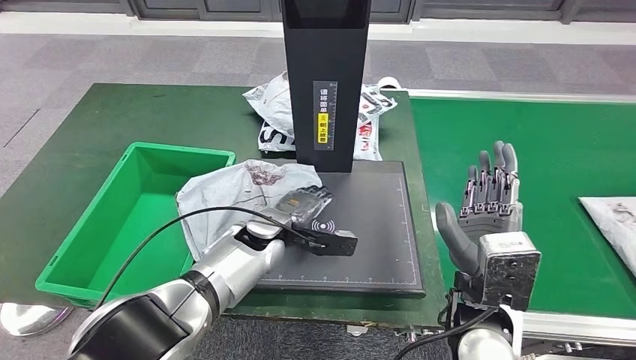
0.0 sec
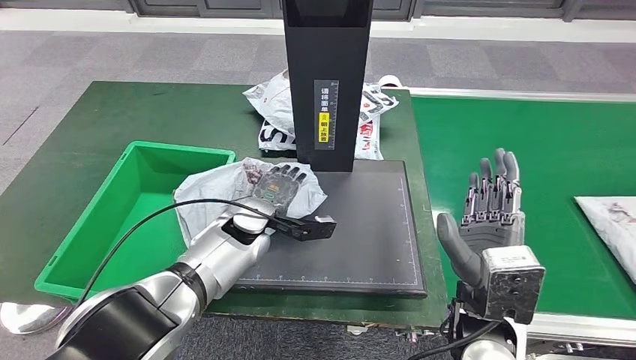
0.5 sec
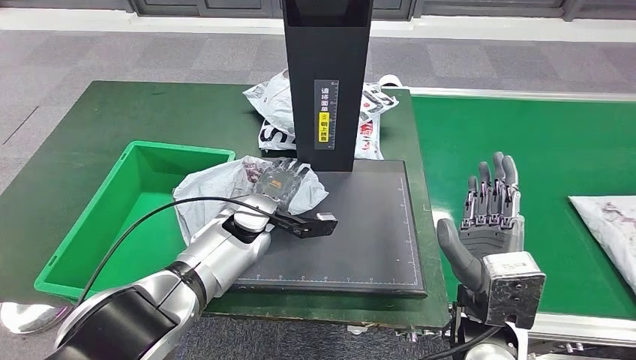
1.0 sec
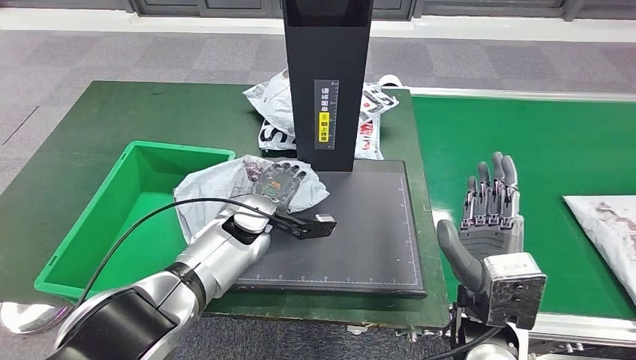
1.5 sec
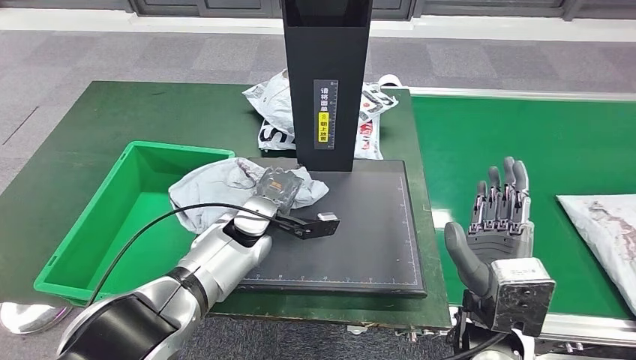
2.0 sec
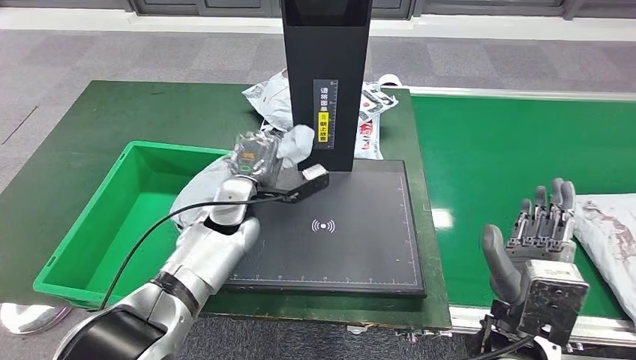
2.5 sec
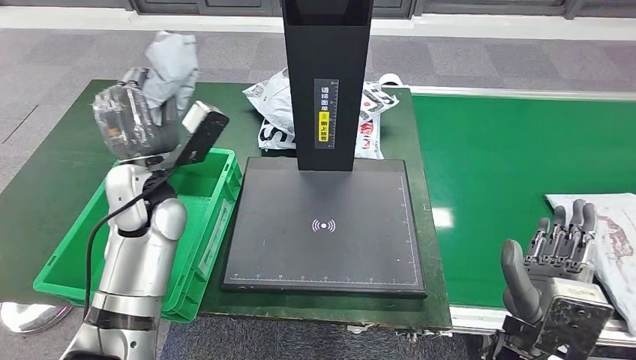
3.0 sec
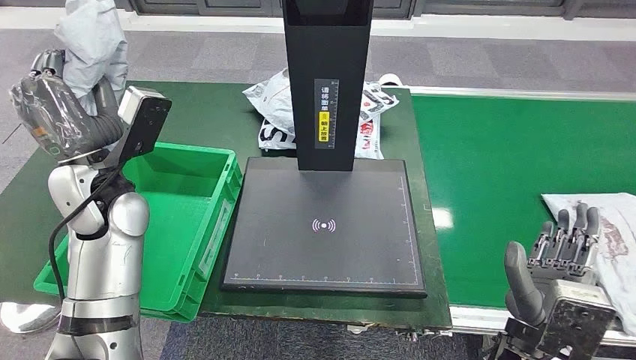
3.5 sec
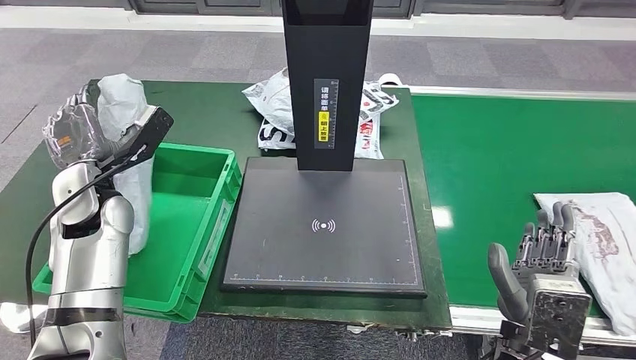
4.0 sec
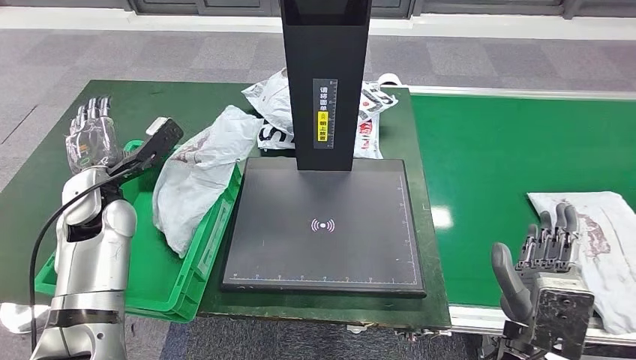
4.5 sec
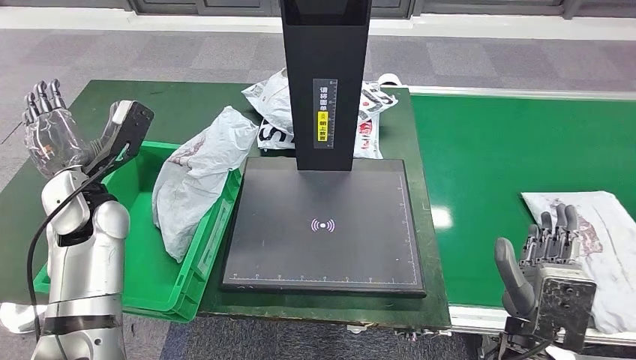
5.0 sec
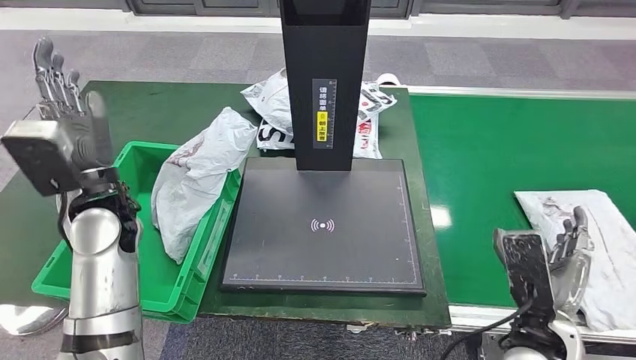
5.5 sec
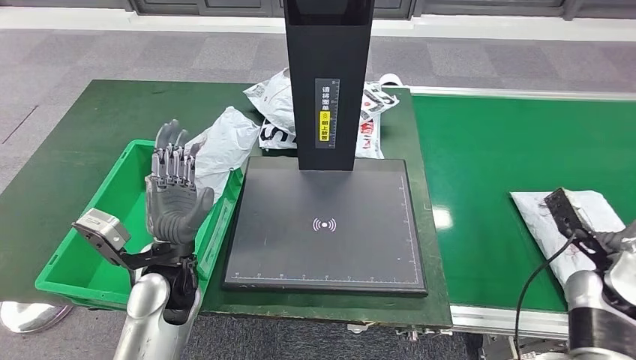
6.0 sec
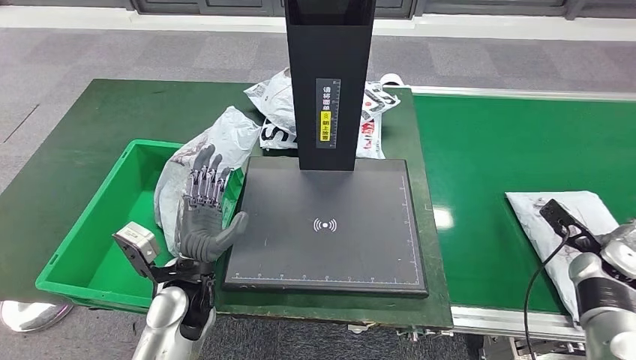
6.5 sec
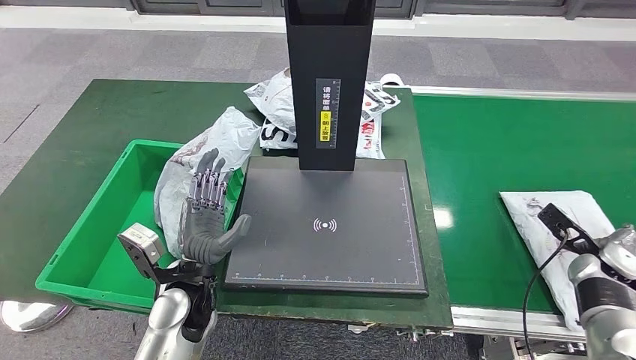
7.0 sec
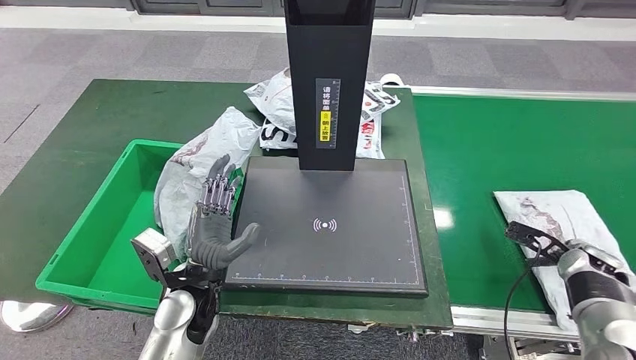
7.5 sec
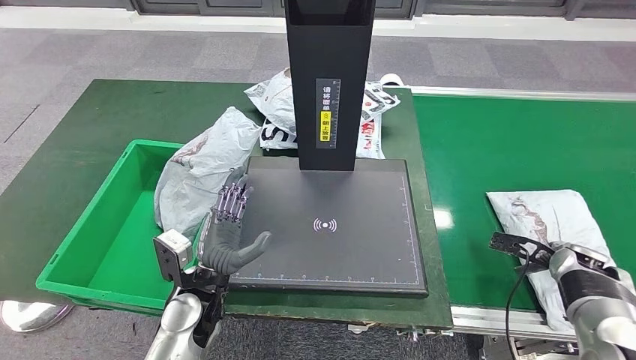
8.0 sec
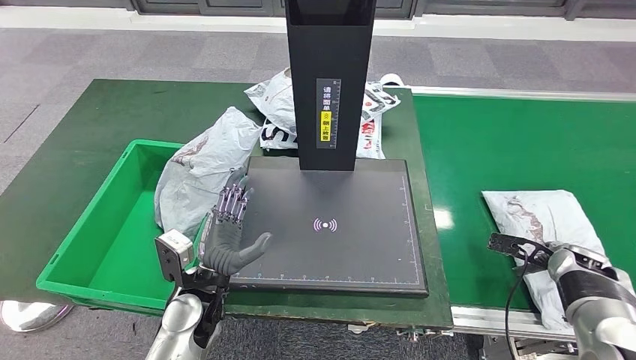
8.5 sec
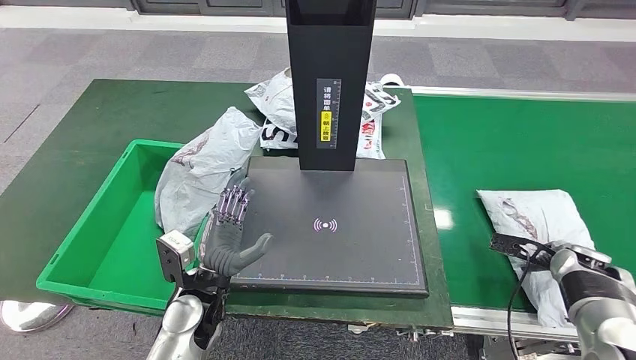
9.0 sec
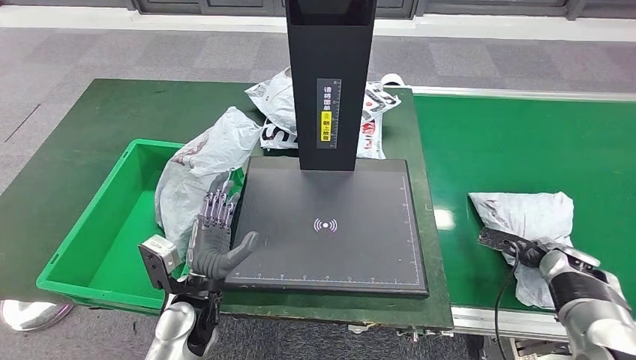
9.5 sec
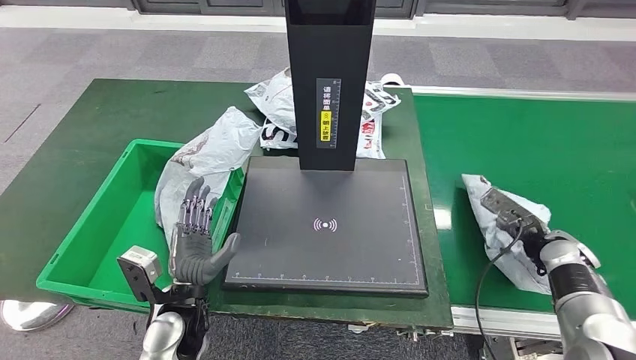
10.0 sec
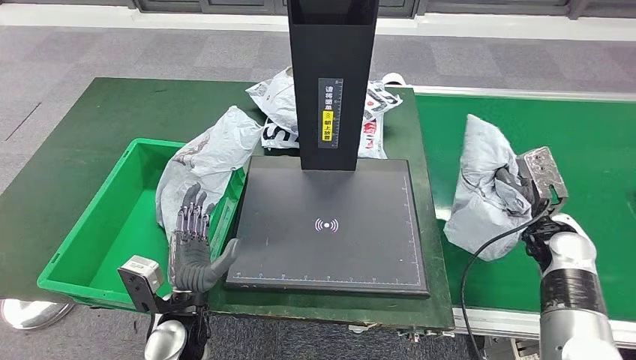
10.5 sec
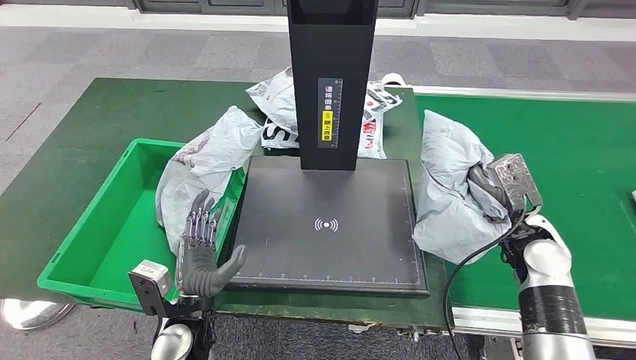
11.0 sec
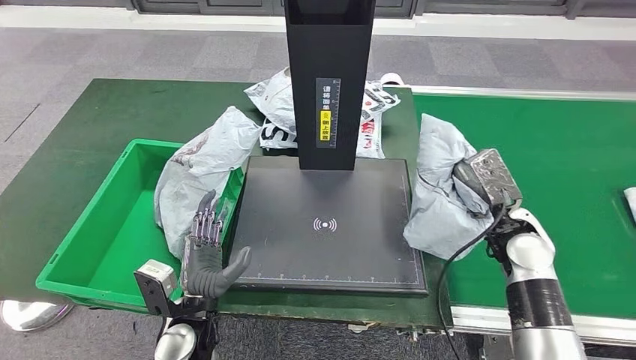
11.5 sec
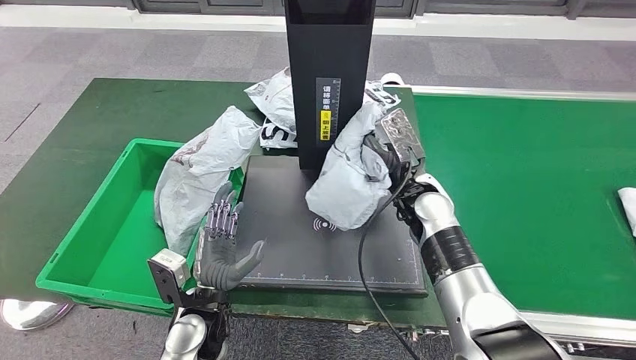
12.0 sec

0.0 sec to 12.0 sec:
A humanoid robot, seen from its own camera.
Step, 0.0 sec to 3.0 sec: Pick up the parcel from the inbound machine.
Step, 3.5 sec to 6.5 sec: Put the parcel inside the courier box.
Step, 7.0 sec to 10.5 sec: Pick up the parcel from the conveyor belt.
6.0 sec to 8.0 sec: The right hand changes place by about 5 cm, while the left hand moves downward, about 5 cm.

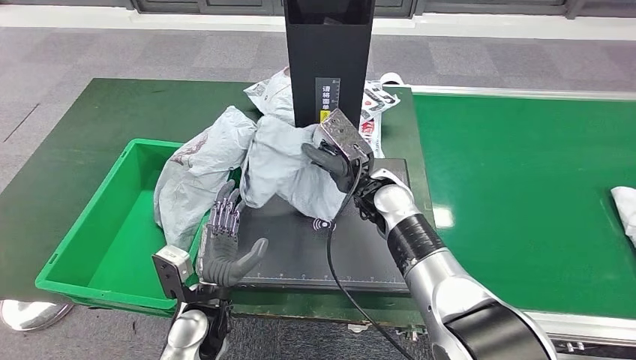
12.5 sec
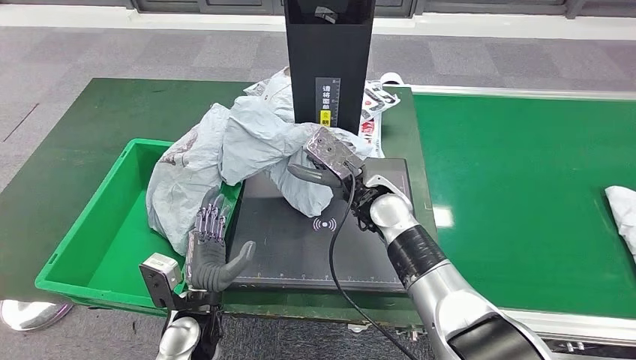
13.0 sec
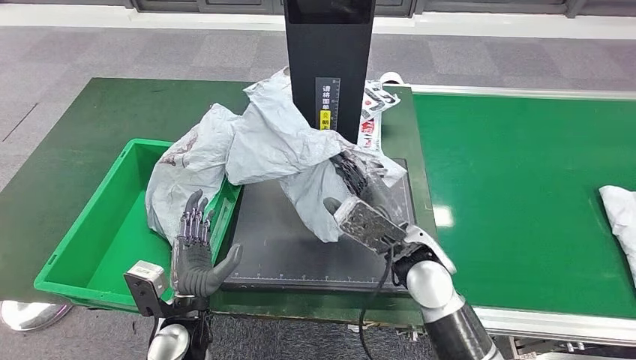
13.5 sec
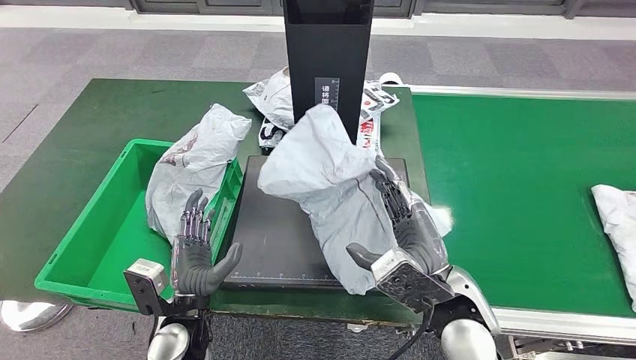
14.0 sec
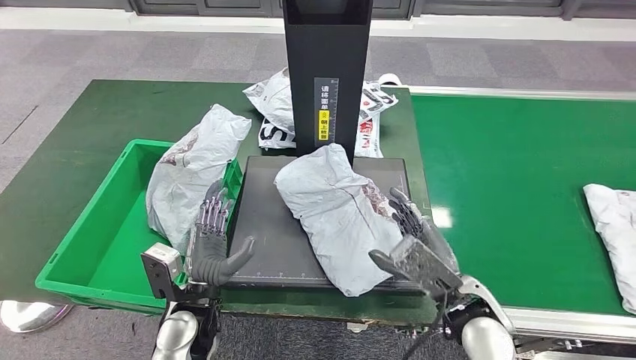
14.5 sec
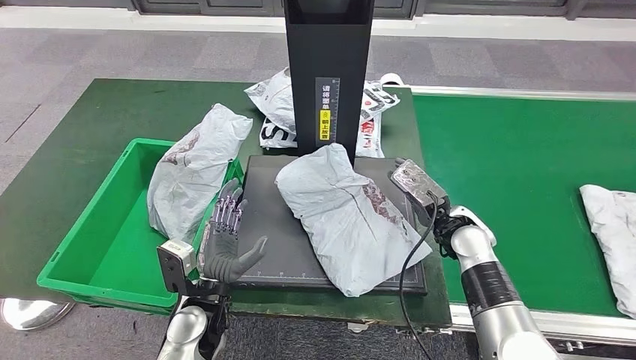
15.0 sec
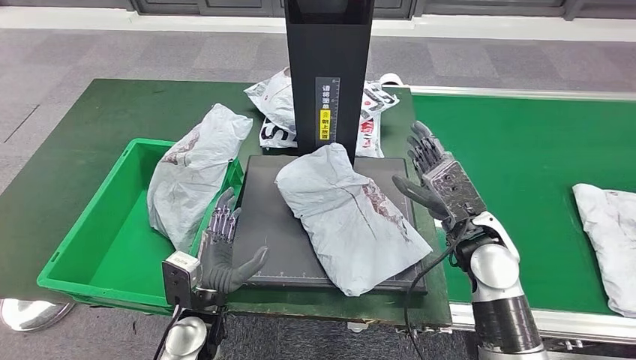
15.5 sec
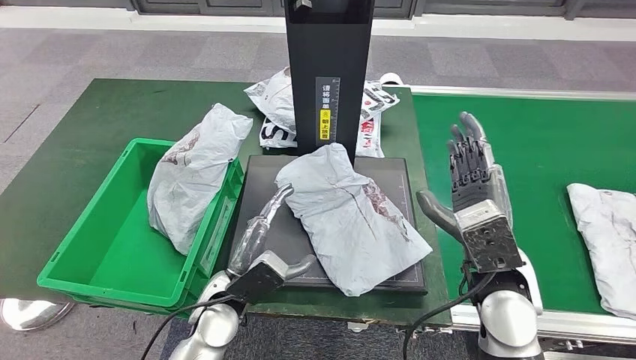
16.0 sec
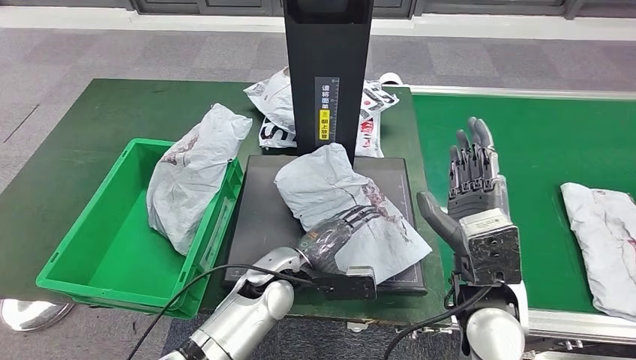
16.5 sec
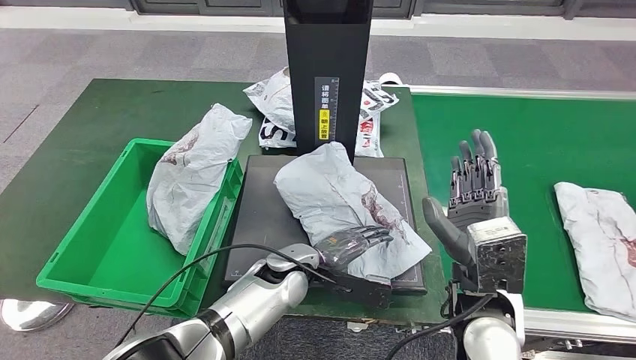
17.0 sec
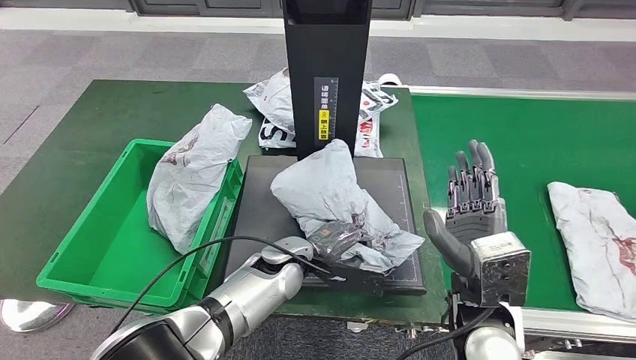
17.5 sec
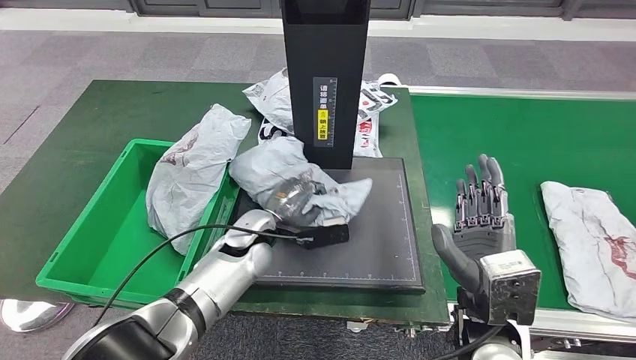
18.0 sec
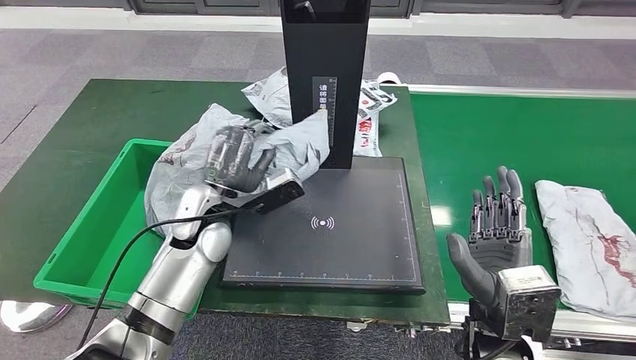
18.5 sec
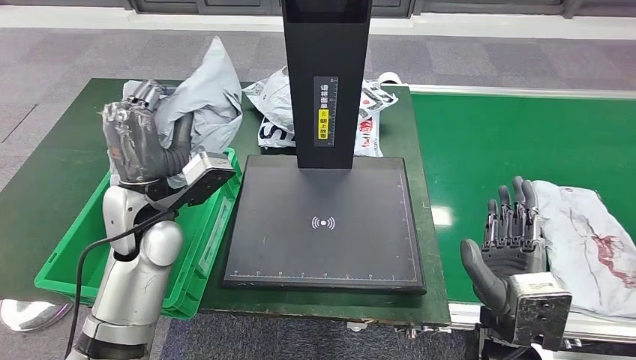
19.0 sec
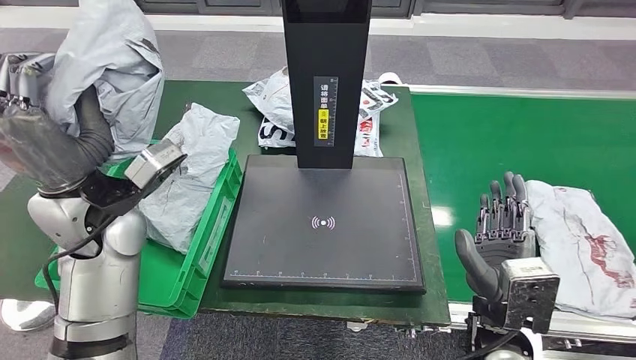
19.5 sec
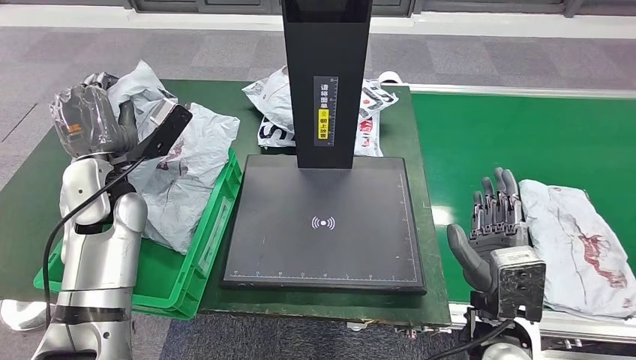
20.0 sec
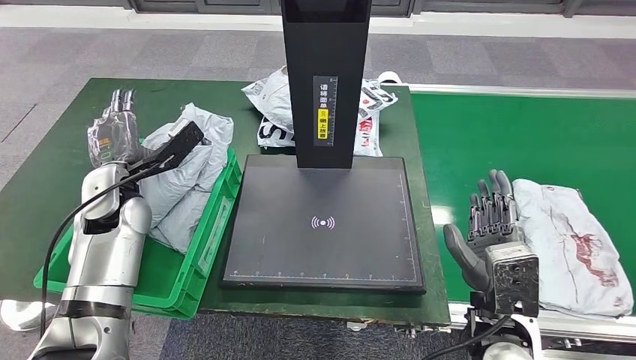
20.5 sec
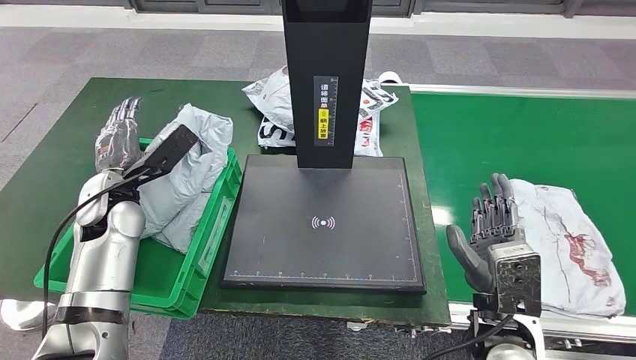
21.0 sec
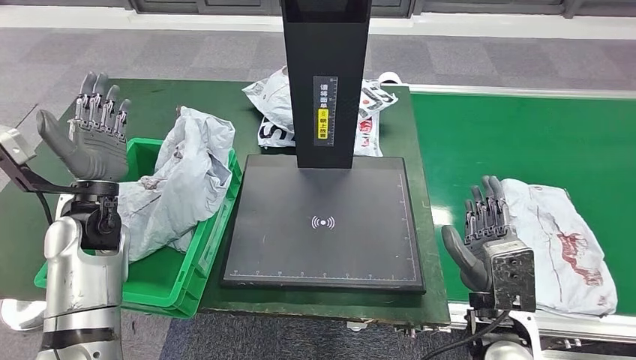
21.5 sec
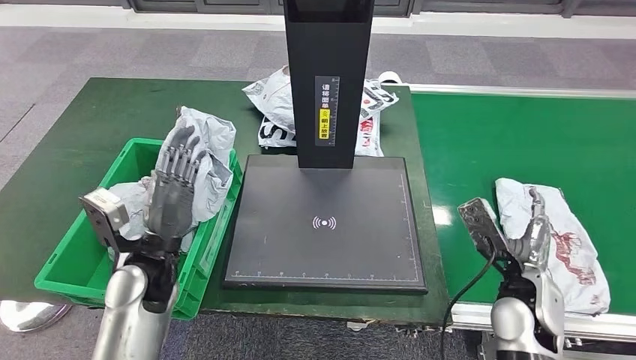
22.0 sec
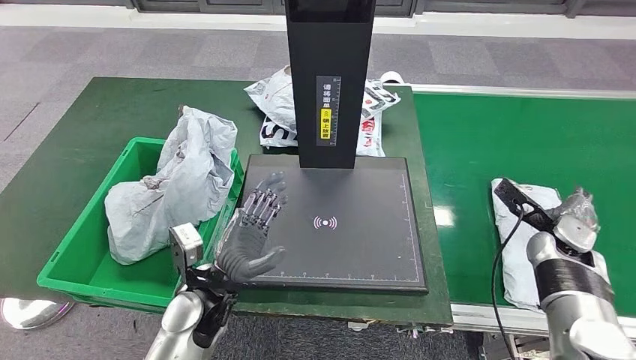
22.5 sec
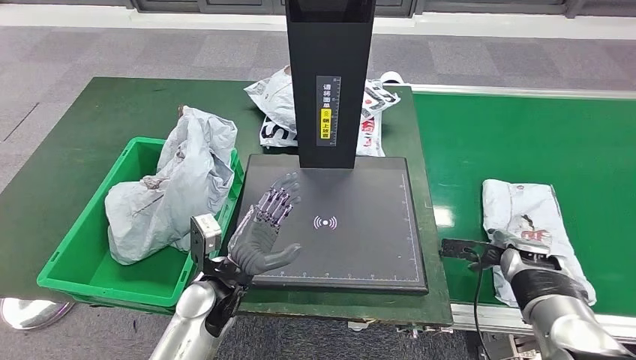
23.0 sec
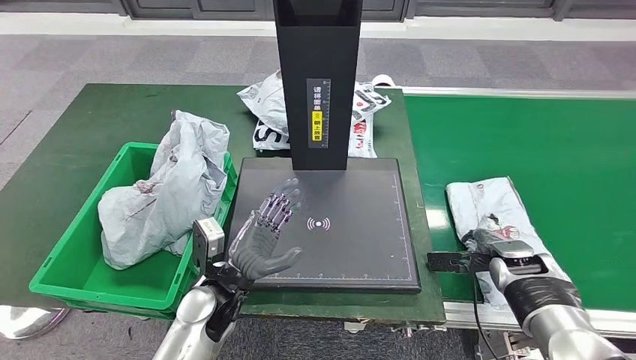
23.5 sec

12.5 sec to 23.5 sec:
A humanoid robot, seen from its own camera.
Step, 12.5 sec to 15.0 sec: Place the parcel onto the inbound machine.
Step, 15.5 sec to 18.5 sec: Pick up the parcel from the inbound machine.
Step, 19.0 sec to 21.5 sec: Place the parcel into the delivery box.
14.5 sec to 16.0 sec: The right hand is displaced upward by approximately 5 cm, and reaches approximately 15 cm forward, then returns.
